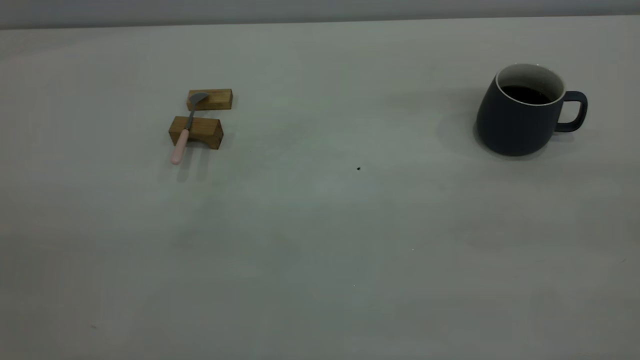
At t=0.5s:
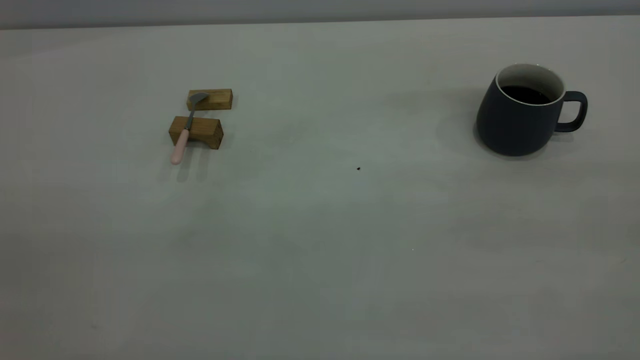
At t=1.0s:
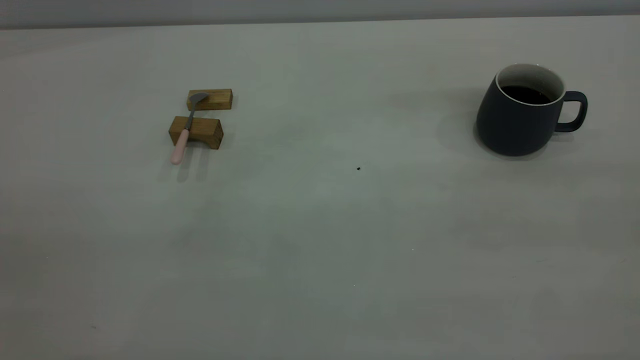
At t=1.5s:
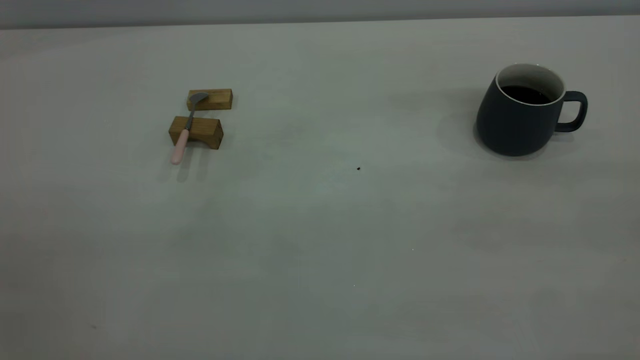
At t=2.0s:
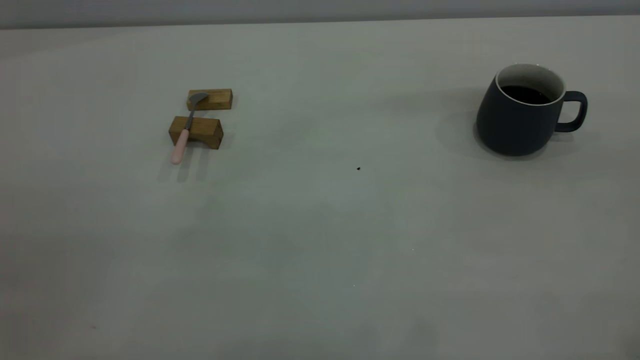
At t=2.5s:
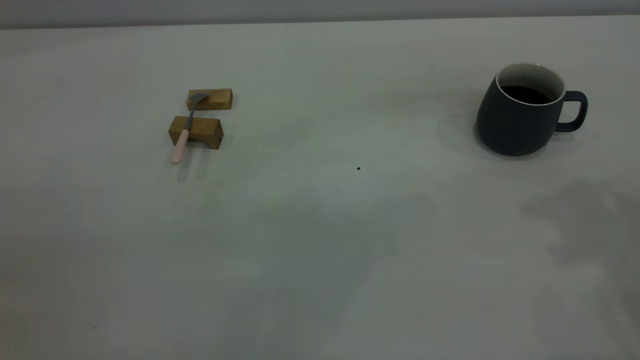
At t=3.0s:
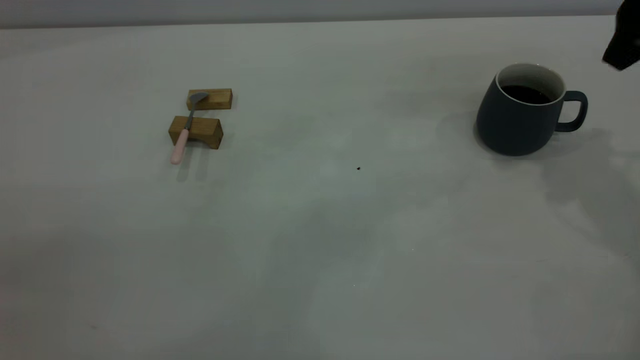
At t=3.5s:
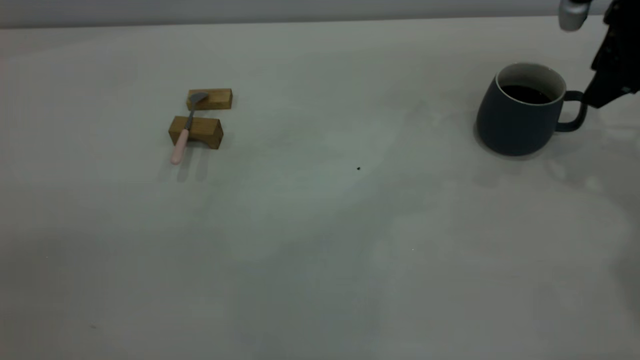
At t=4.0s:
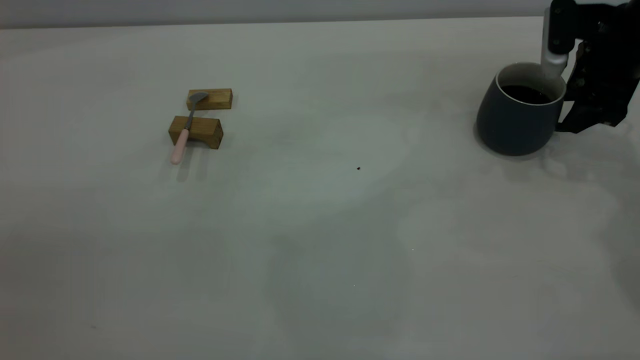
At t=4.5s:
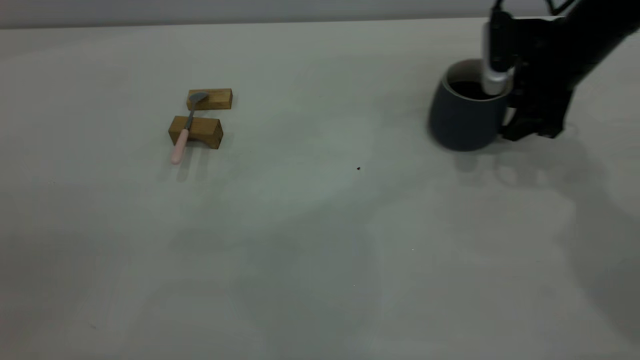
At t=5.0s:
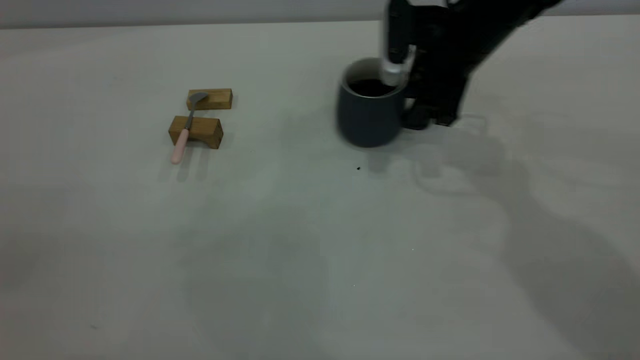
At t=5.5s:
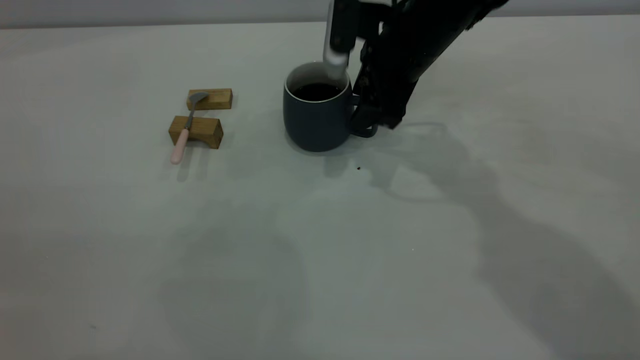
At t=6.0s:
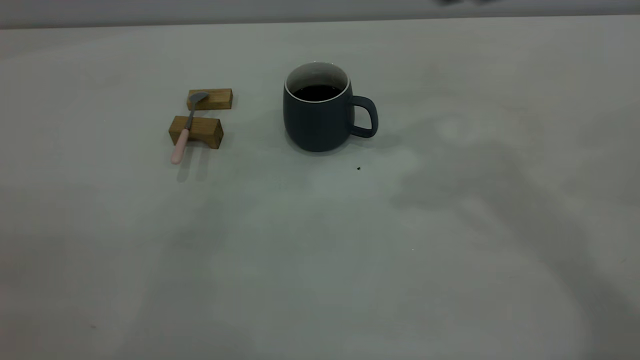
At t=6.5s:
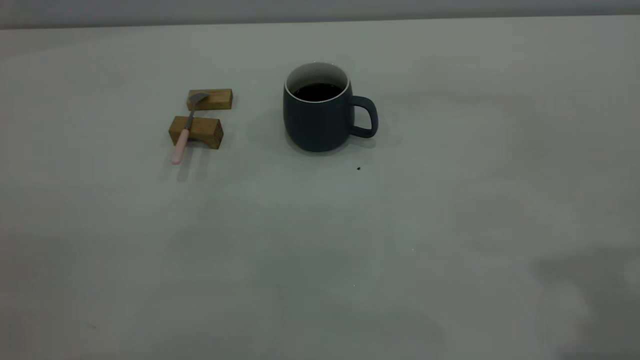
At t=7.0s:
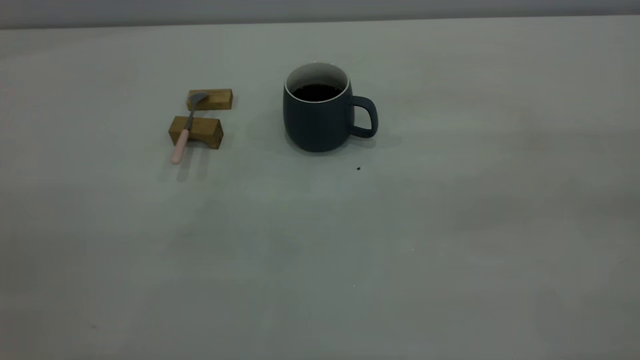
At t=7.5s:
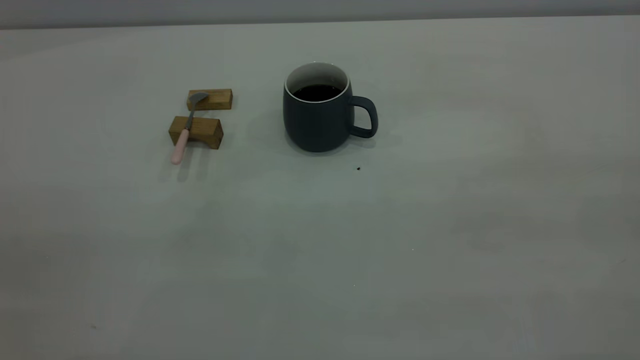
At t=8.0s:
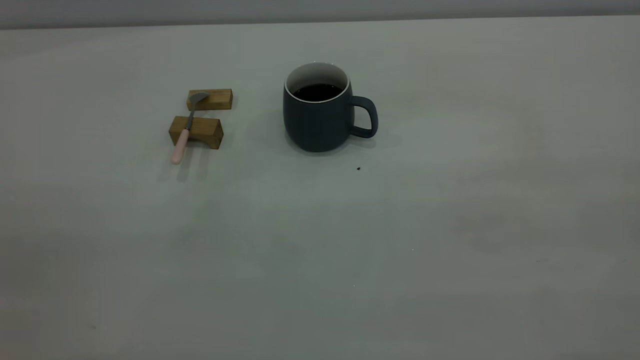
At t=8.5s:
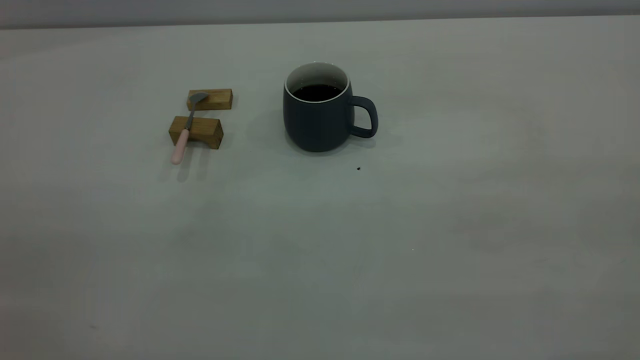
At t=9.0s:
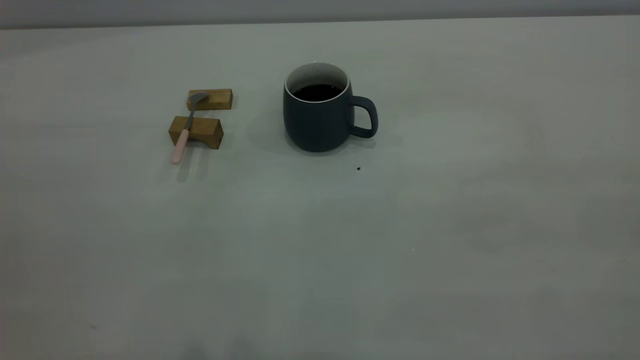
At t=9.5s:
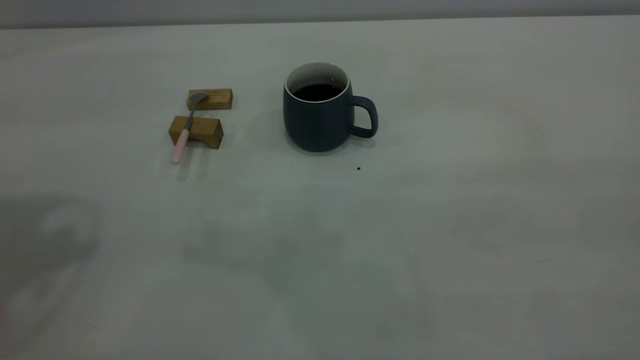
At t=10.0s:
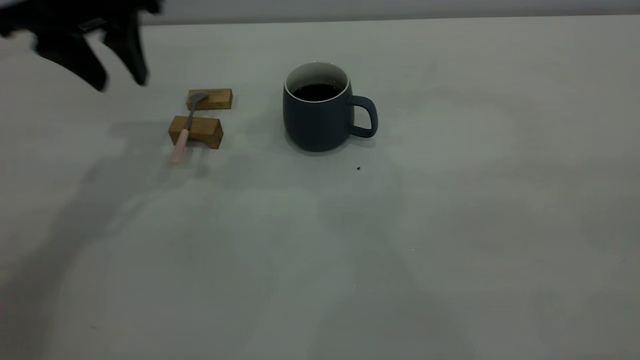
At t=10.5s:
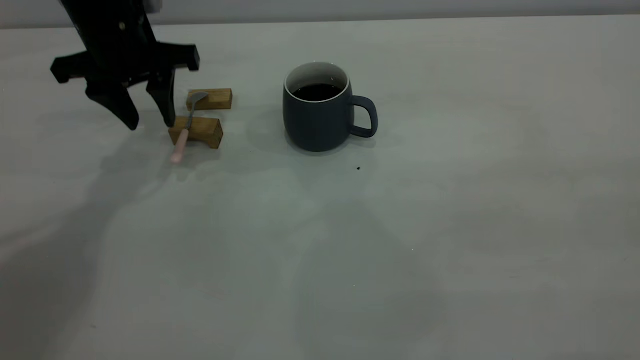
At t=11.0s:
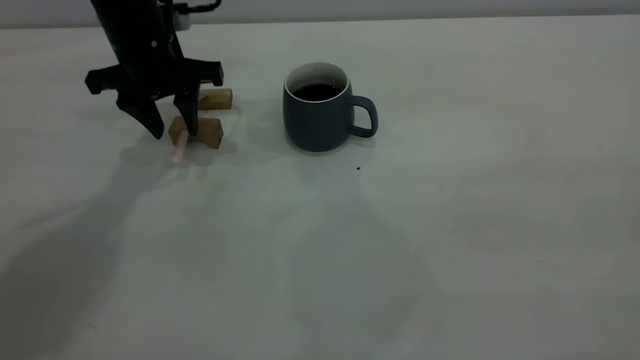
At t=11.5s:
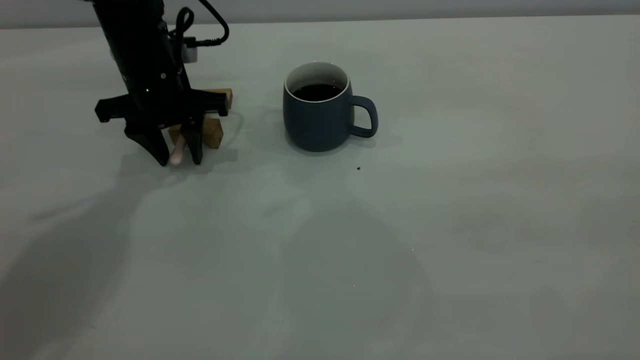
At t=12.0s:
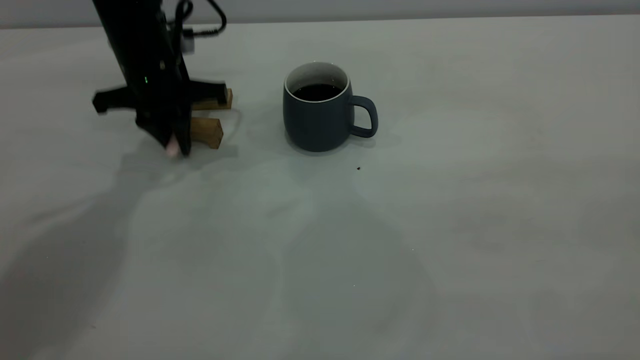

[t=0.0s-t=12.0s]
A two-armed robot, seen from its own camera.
Step, t=0.0s to t=5.5s: Move the cup with coffee to the center of view.
Step, t=6.0s to t=12.0s: Pick up the spoon.
t=2.0s to t=4.0s: The right gripper travels forward and downward by about 40 cm.
t=4.0s to t=6.0s: The right gripper goes about 25 cm upward and to the left, and closes.
t=8.0s to t=10.0s: The left gripper goes some 40 cm forward, and opens up.
t=10.0s to t=12.0s: The left gripper is displaced downward and forward by some 10 cm, and closes up.

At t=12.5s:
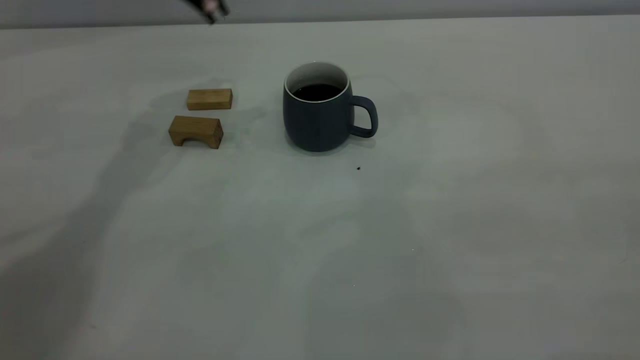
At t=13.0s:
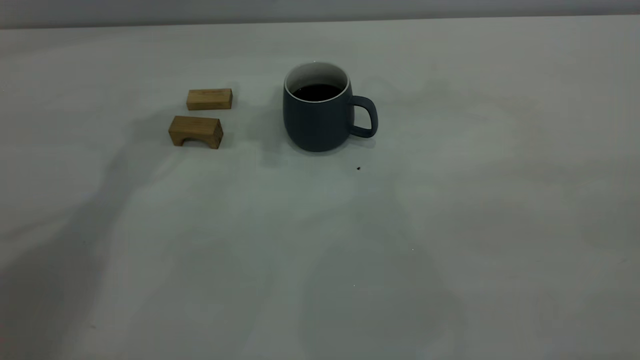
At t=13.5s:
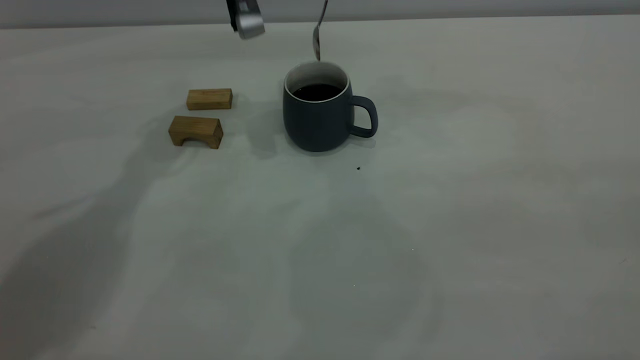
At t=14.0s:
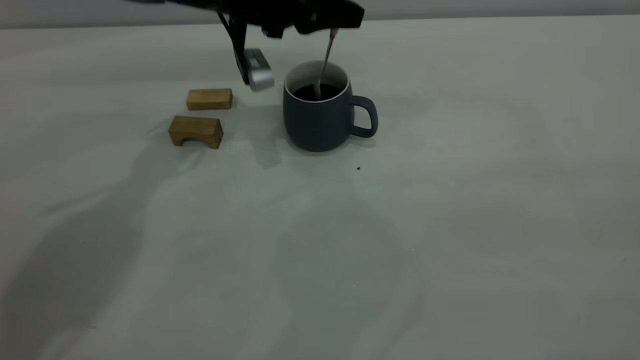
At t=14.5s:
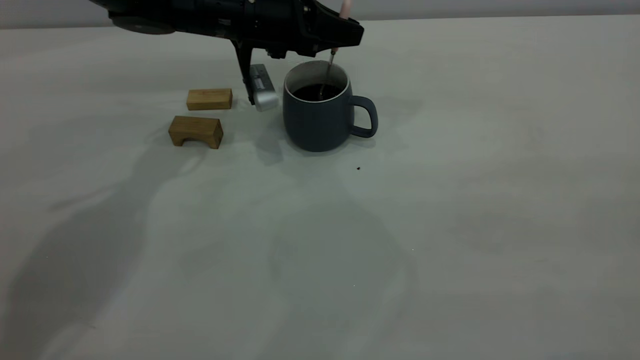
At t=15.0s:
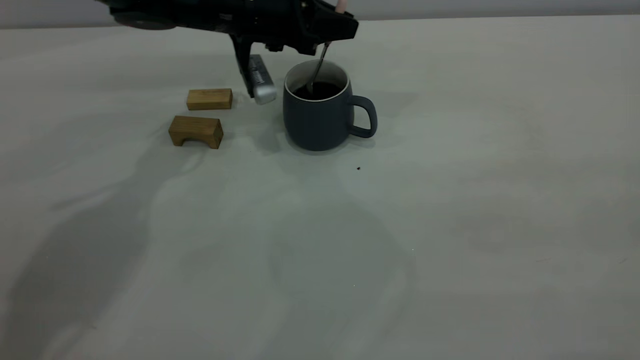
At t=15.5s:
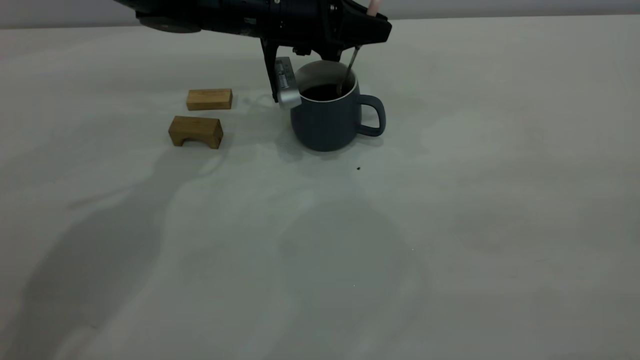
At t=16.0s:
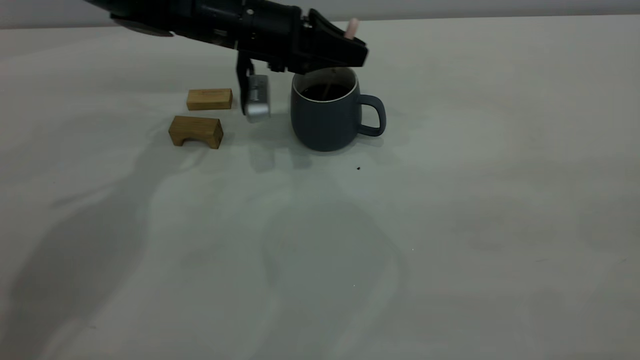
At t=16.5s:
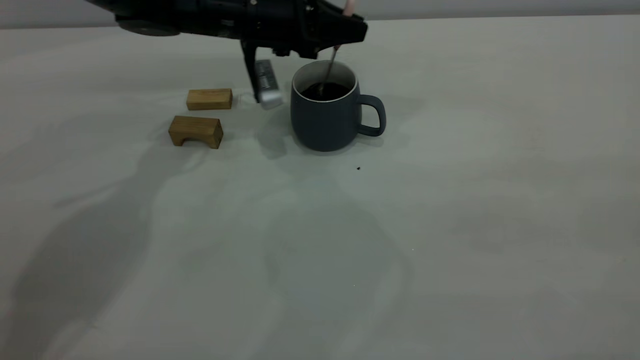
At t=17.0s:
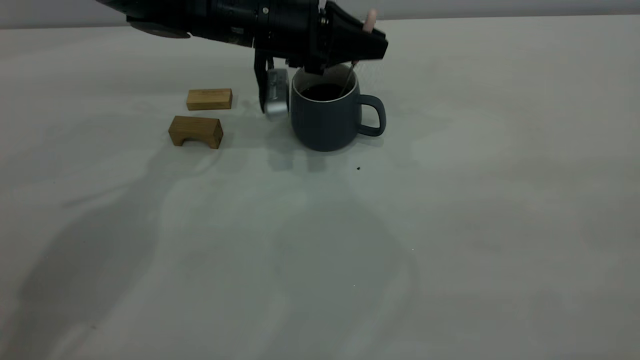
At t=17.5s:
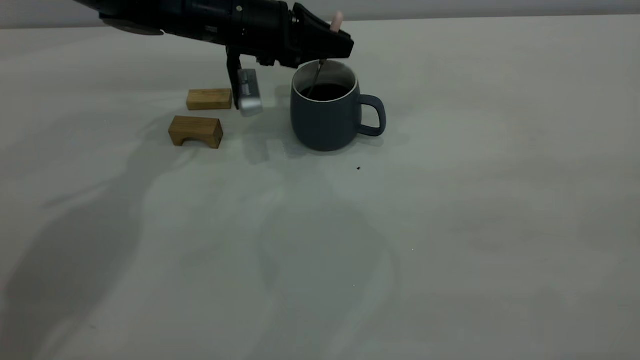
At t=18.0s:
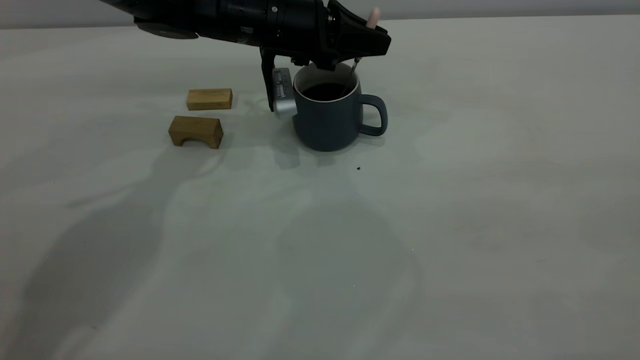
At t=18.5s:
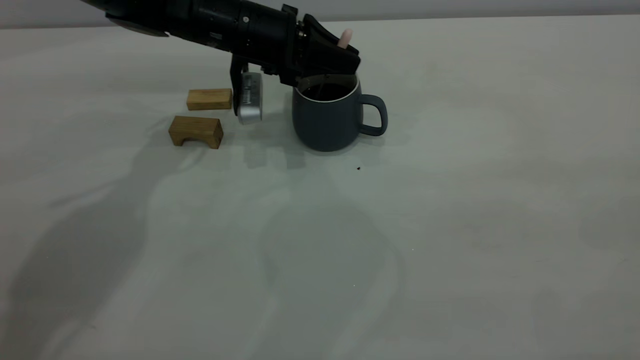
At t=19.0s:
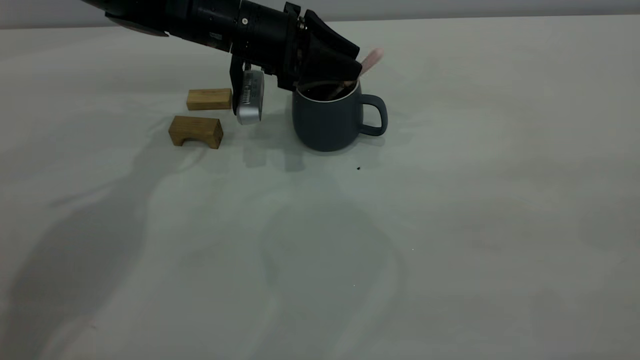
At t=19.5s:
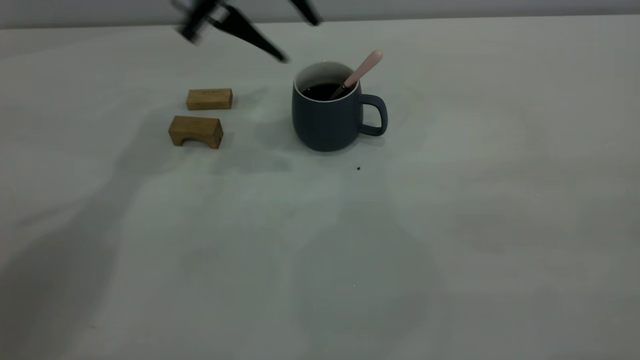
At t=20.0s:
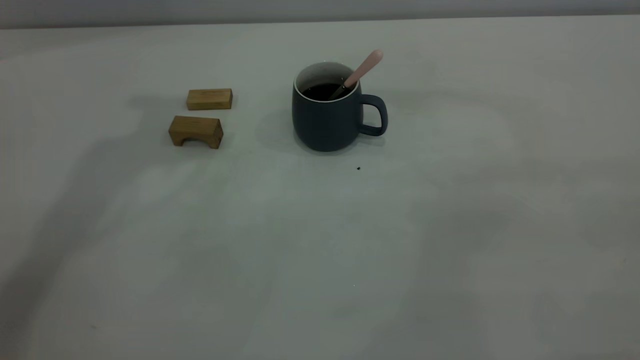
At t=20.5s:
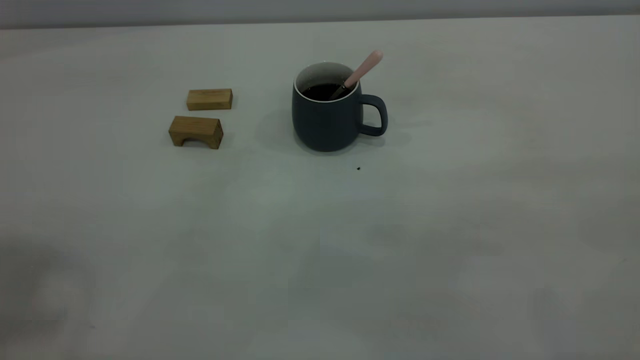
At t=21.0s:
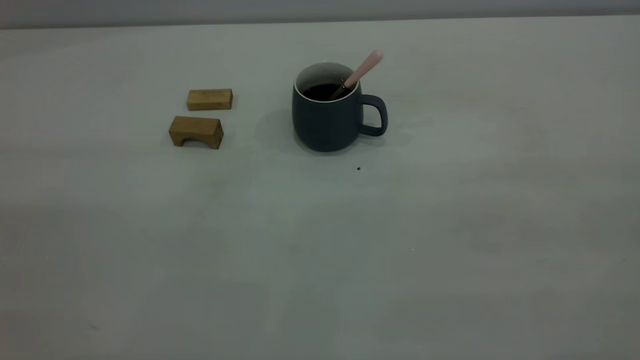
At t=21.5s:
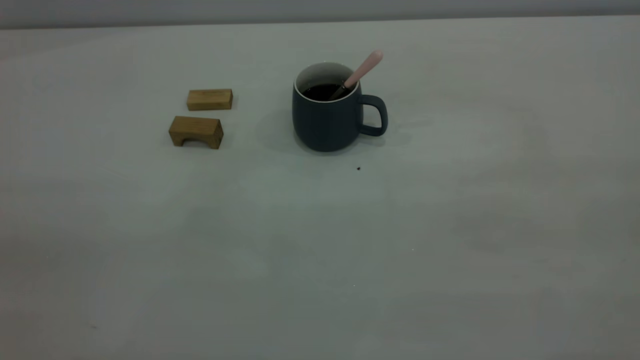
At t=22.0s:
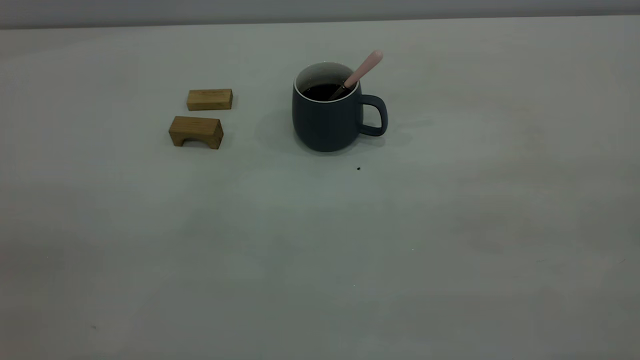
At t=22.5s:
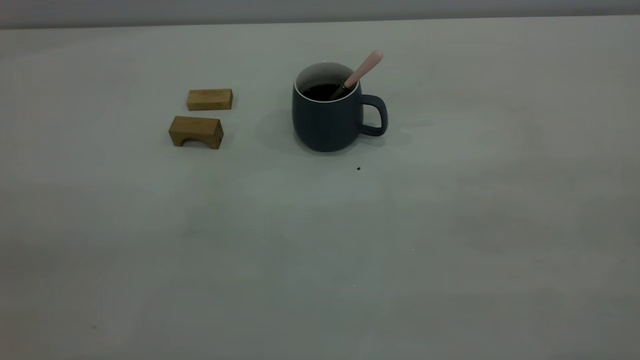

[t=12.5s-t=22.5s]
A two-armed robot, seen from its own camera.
Step, t=12.5s to t=19.5s: Stir the coffee in the cup.
t=12.5s to t=14.5s: The left gripper heads downward, covering some 15 cm.
t=14.5s to t=18.5s: The grippers stay close to where they were, moving slightly.
t=18.5s to t=20.5s: The left gripper shifts about 50 cm upward, backward and to the left, and opens its fingers.
